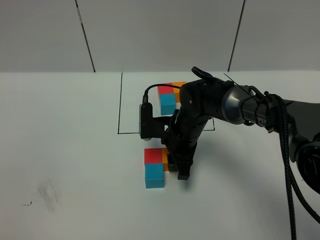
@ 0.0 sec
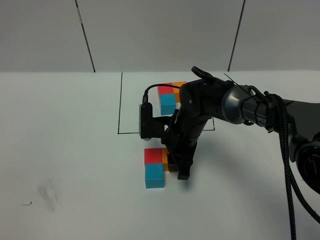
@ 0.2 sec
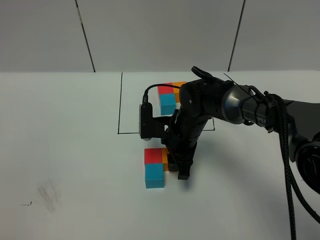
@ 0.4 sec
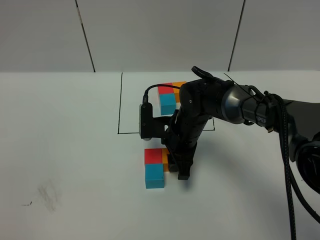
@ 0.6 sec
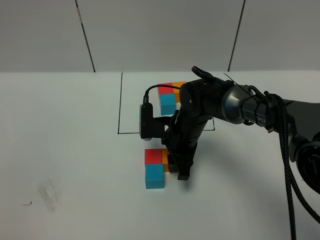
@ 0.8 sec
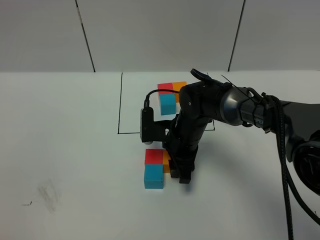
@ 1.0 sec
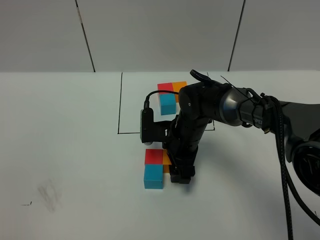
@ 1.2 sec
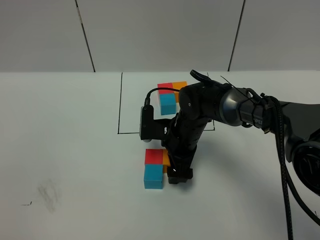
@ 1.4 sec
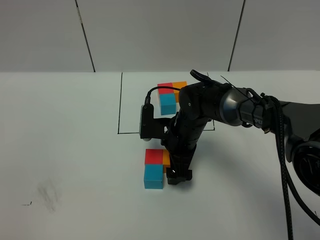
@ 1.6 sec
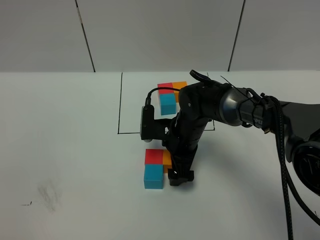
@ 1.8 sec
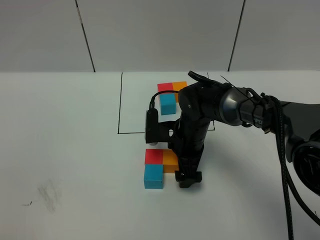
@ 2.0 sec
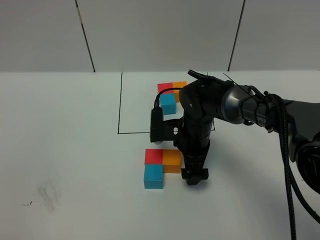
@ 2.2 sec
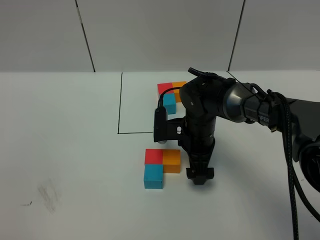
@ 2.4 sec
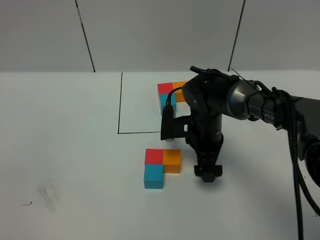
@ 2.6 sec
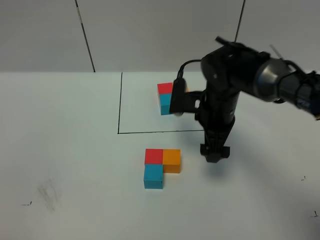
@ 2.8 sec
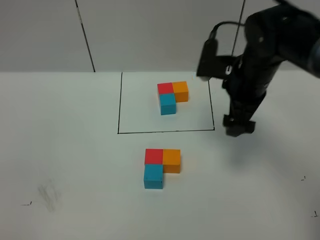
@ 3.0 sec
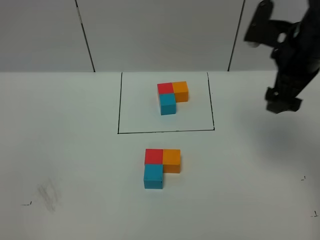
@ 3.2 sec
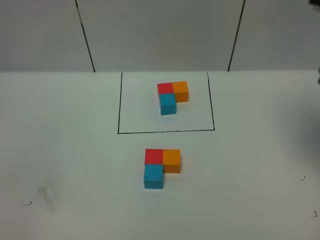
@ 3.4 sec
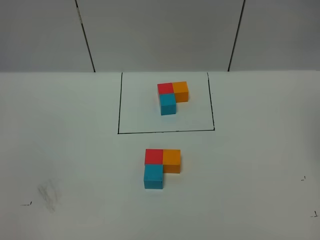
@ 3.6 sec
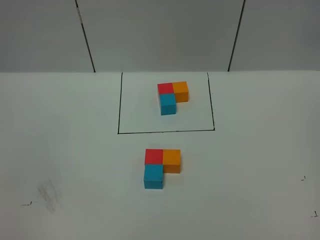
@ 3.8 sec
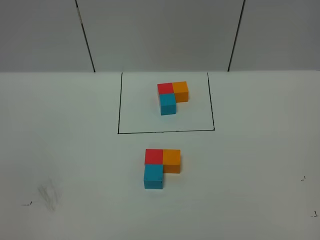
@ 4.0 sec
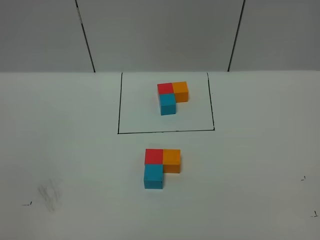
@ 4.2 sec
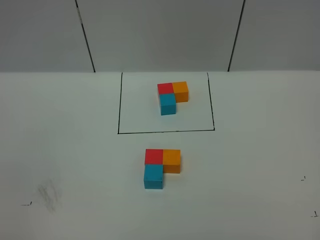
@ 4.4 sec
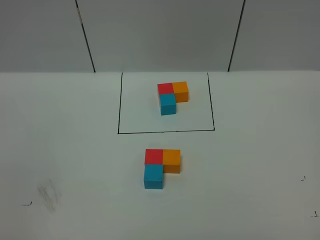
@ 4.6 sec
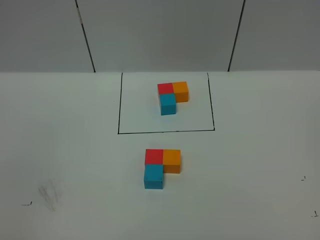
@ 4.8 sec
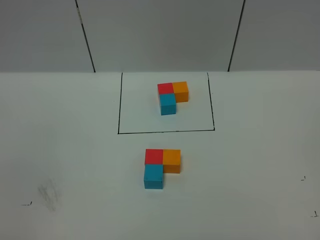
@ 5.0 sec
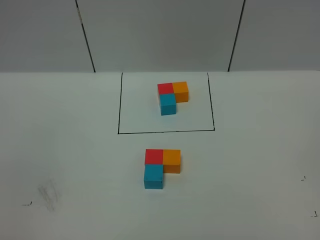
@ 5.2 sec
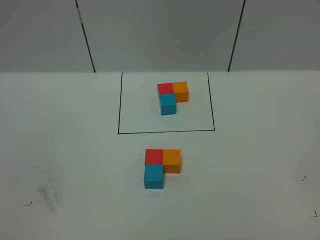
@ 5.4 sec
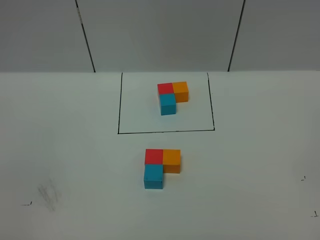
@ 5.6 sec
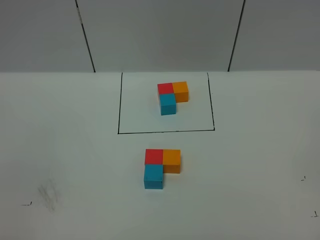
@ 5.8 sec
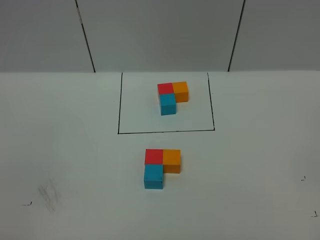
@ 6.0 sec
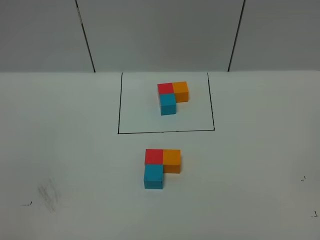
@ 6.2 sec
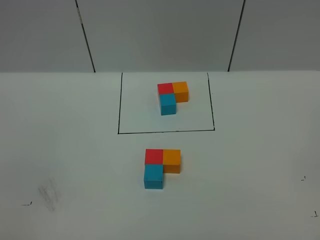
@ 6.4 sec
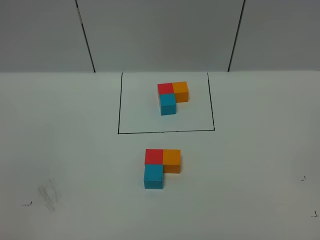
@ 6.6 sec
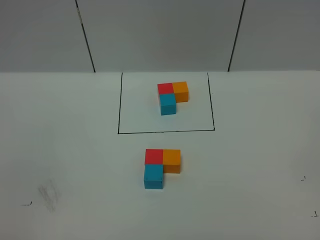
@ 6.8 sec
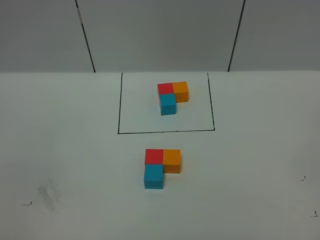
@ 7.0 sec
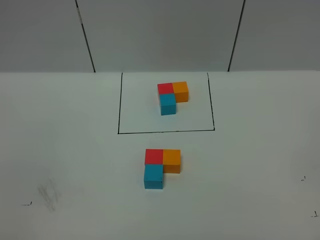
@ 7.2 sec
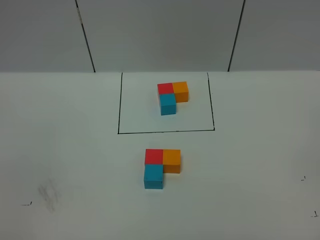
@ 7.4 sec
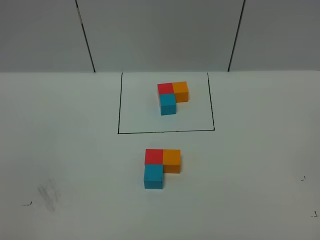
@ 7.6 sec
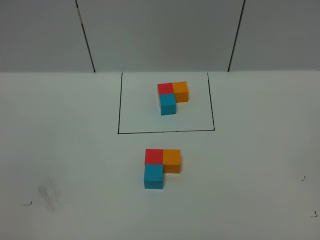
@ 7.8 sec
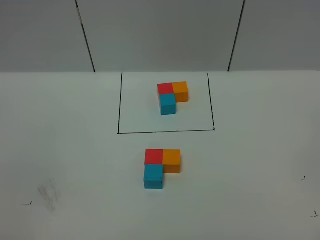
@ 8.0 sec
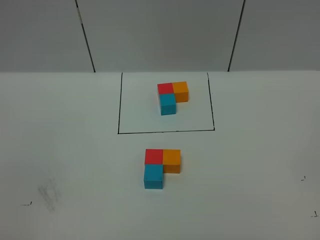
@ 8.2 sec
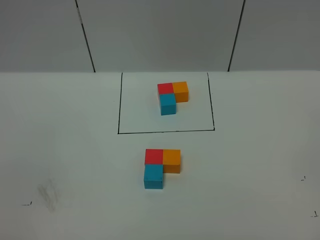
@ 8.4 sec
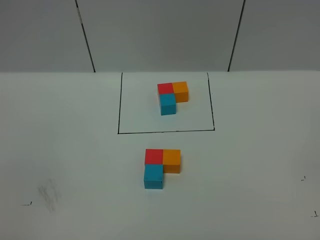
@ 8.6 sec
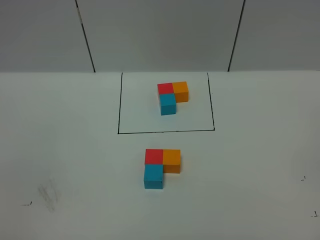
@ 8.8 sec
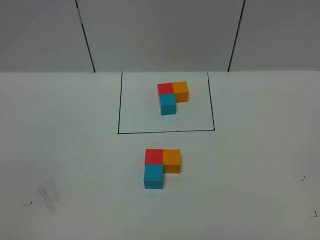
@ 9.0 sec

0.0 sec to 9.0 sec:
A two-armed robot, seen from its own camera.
Task of the whole recording: According to the building block template in front, assemble the scattered blocks together.
Step, 0.0 sec to 2.4 sec: Adjust the pose of the building blocks.
0.0 sec to 1.6 sec: The right gripper opens its fingers.
1.6 sec to 3.0 sec: The right gripper is displaced upward and to the right by about 20 cm.
3.0 sec to 4.4 sec: The right gripper heads backward, upward and to the right, covering about 50 cm.
6.0 sec to 9.0 sec: Both grippers stay put.
